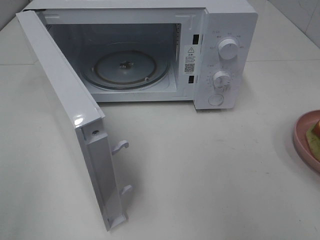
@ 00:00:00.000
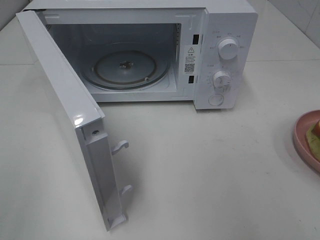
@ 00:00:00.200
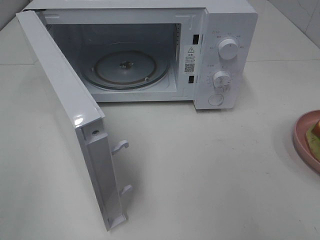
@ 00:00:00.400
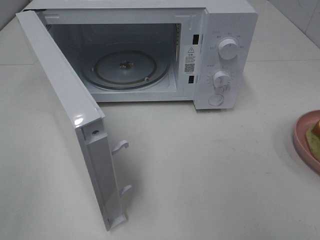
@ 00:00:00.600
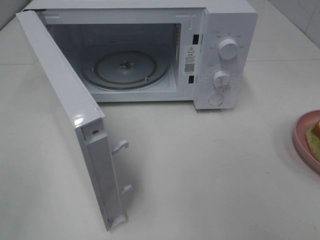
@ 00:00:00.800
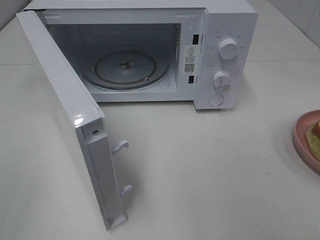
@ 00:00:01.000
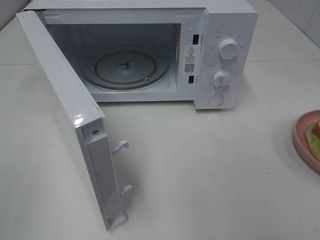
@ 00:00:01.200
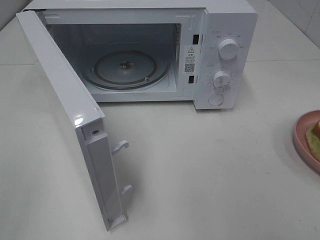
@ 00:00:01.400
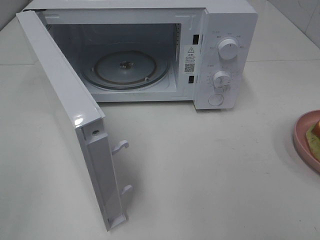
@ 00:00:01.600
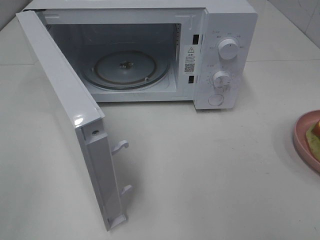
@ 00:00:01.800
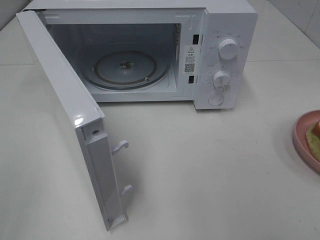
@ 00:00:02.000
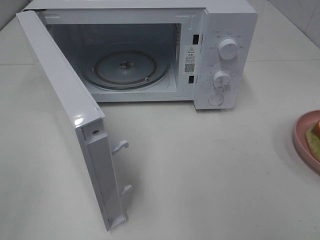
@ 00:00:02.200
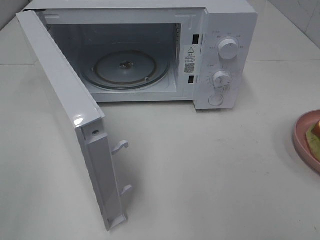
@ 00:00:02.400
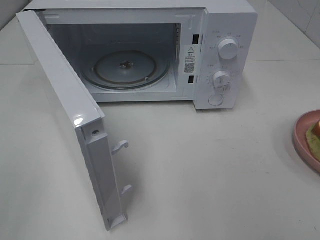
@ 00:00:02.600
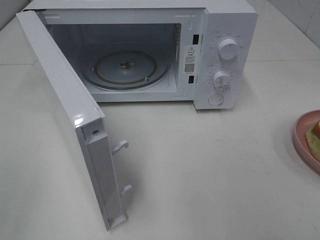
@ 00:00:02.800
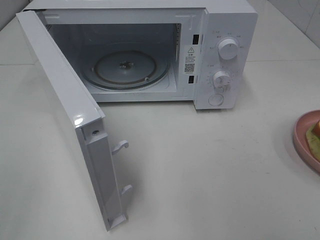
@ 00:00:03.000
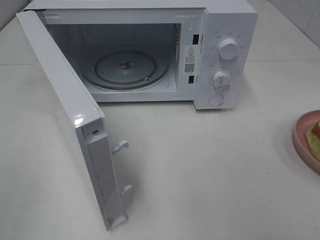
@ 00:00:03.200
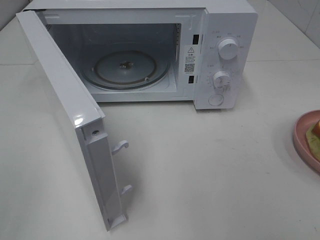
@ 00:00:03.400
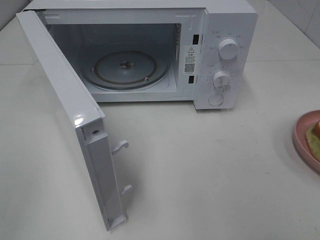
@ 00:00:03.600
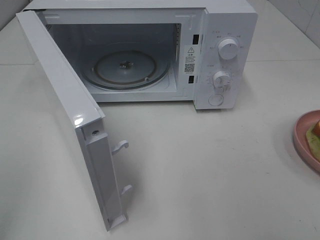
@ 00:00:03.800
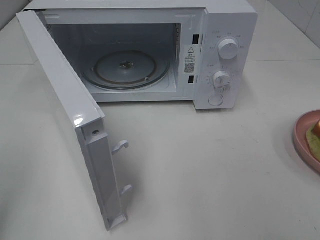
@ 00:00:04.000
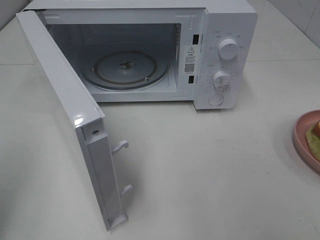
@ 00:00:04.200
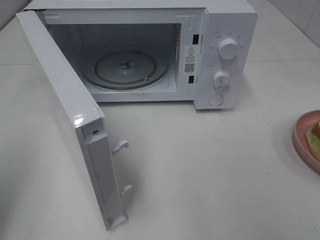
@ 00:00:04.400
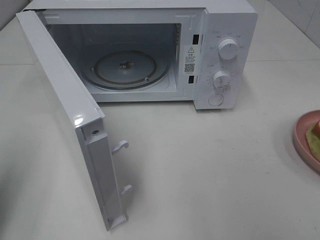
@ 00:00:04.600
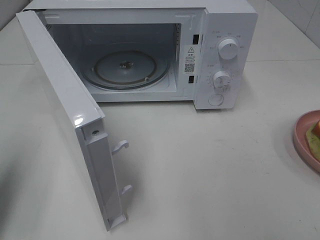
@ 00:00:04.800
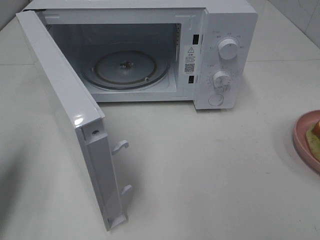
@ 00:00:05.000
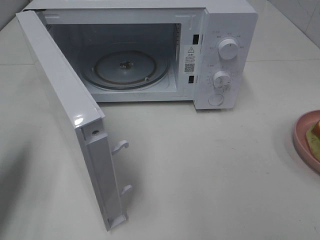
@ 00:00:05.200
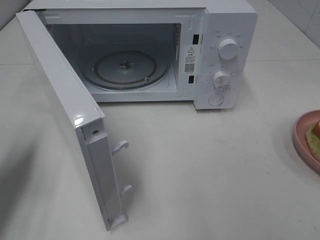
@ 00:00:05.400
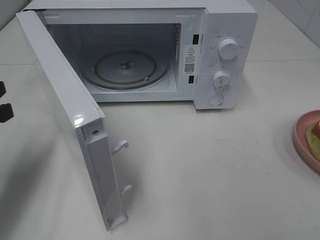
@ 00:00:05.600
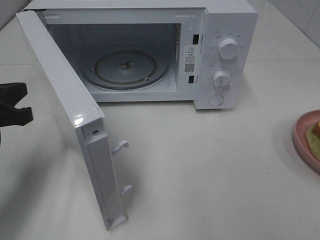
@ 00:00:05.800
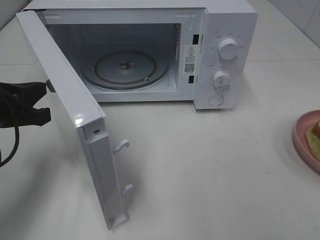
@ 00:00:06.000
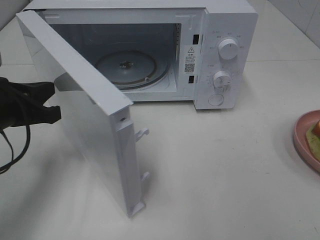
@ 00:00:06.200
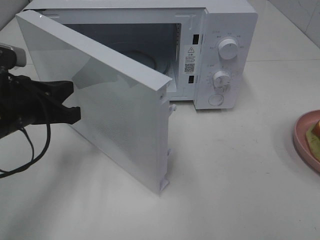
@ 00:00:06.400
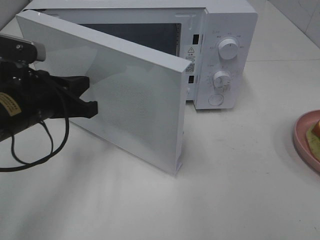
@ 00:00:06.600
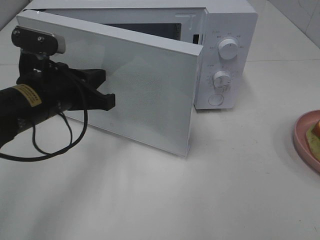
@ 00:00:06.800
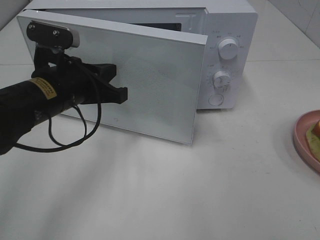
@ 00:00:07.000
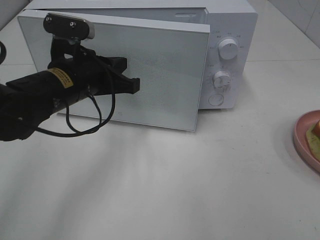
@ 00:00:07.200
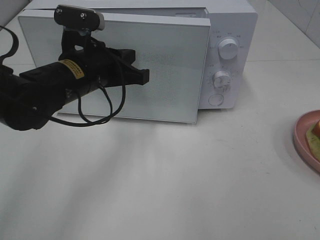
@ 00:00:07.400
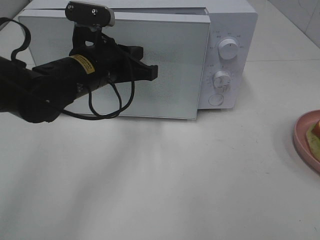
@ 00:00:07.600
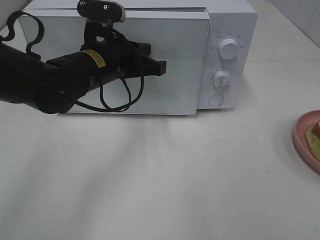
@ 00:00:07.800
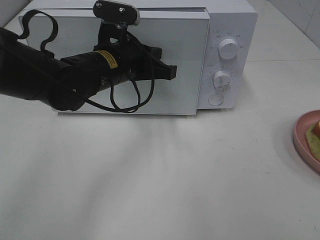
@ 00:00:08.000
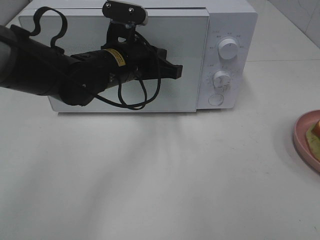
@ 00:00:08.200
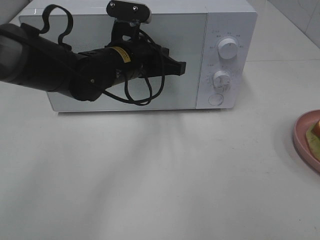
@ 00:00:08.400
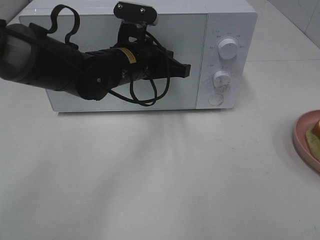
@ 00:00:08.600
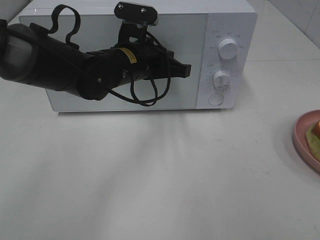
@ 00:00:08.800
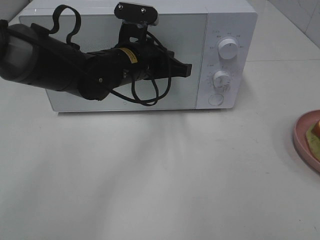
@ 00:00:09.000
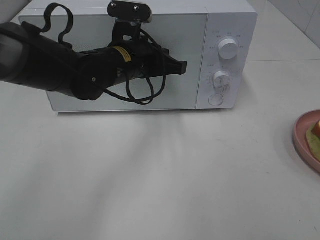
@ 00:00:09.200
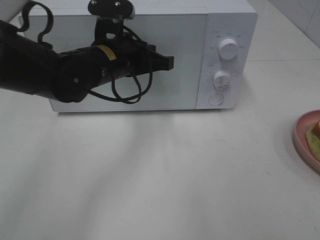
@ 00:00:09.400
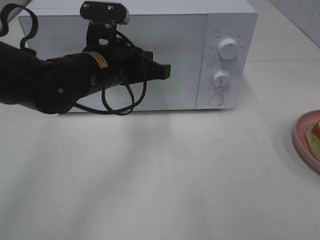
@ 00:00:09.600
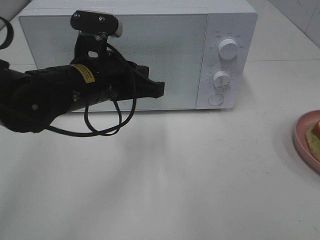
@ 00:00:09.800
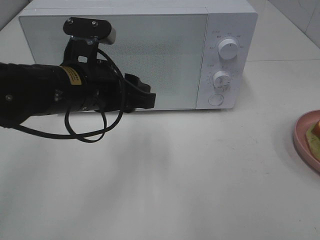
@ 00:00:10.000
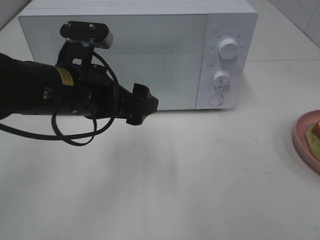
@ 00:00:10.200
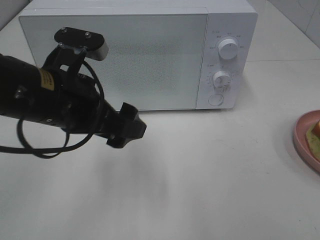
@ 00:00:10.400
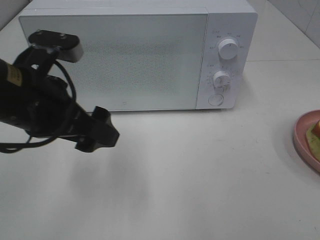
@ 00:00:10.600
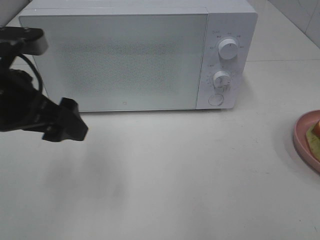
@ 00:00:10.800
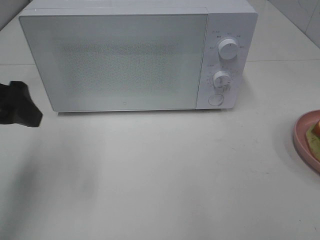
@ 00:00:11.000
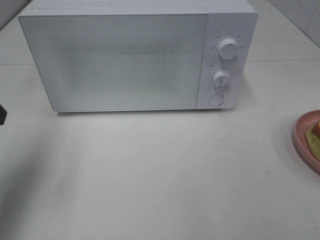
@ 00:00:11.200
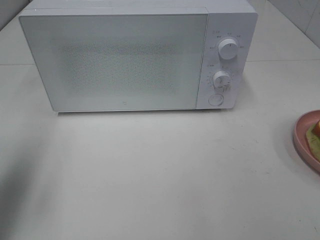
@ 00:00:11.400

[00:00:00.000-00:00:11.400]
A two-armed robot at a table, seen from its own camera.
Task of the whole recording: Heat Sandwich.
Step, 00:00:00.000 to 00:00:10.000: Left hand: close the microwave door.
00:00:01.400 to 00:00:02.800: Both grippers stay put.
00:00:04.200 to 00:00:05.600: The left gripper shifts about 15 cm forward and downward.
00:00:05.600 to 00:00:07.200: The left gripper moves to the right and forward, about 20 cm.
00:00:07.200 to 00:00:08.600: The left gripper goes about 10 cm to the right and forward.
00:00:08.600 to 00:00:10.000: The left gripper shifts roughly 10 cm backward and to the left, and opens up.
00:00:10.000 to 00:00:11.400: The left gripper heads to the left, covering some 20 cm, and opens.

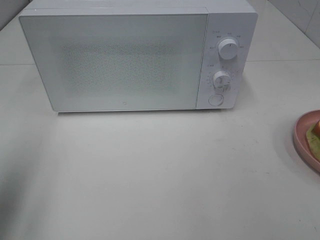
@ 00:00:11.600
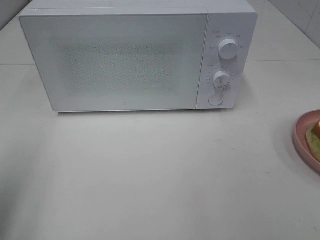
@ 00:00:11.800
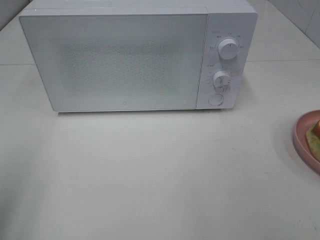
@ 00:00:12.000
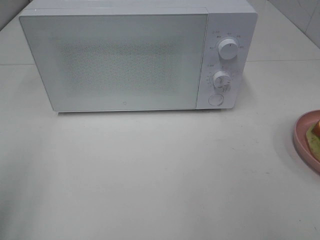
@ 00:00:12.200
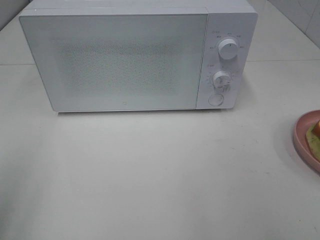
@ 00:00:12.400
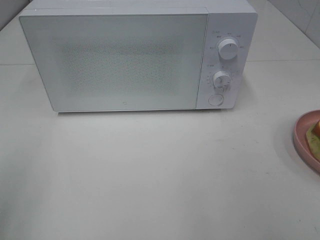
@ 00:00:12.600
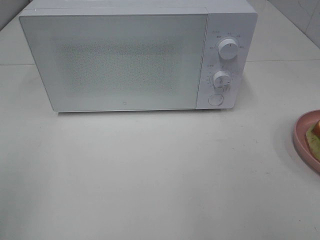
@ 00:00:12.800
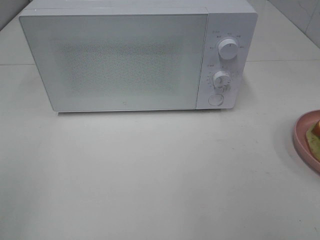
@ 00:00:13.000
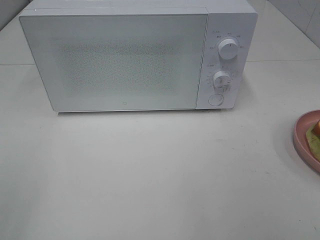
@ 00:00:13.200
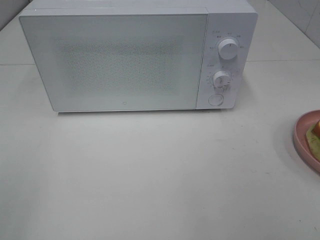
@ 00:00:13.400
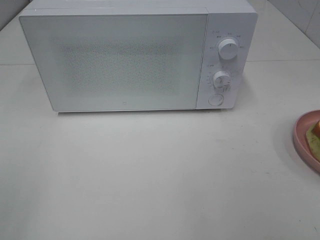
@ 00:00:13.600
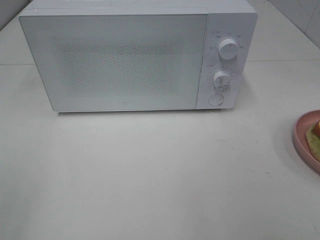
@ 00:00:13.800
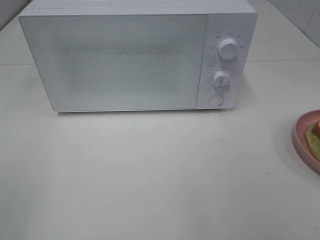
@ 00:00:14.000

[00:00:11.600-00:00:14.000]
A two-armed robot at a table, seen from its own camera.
Task of the whole recording: Heat Sandwich.
00:00:11.600 to 00:00:12.800: The left gripper travels backward by some 10 cm.
